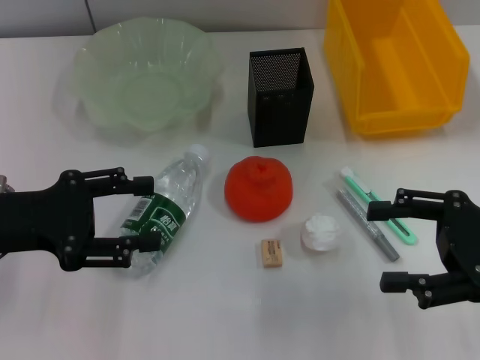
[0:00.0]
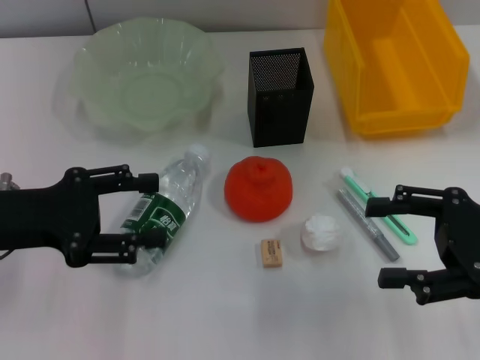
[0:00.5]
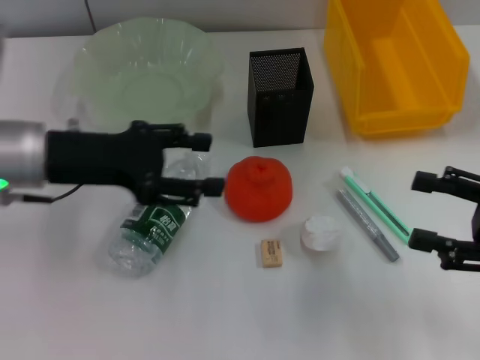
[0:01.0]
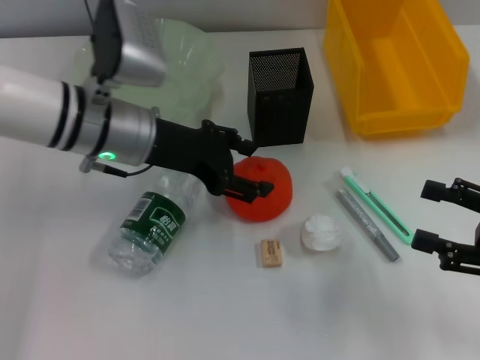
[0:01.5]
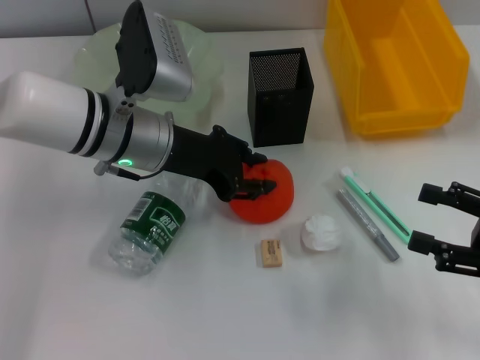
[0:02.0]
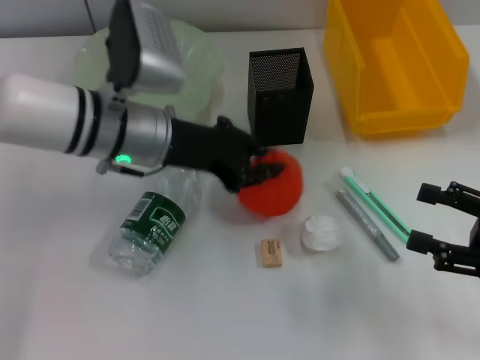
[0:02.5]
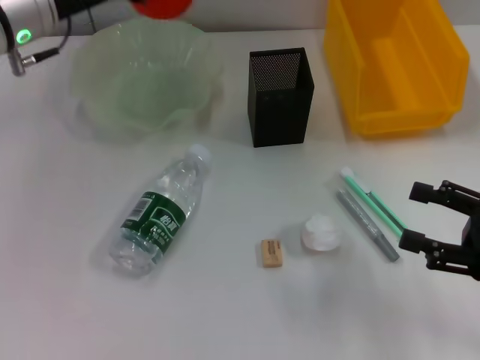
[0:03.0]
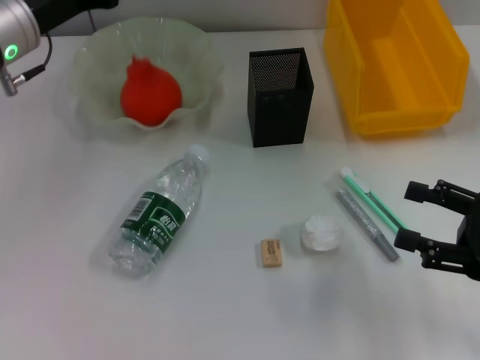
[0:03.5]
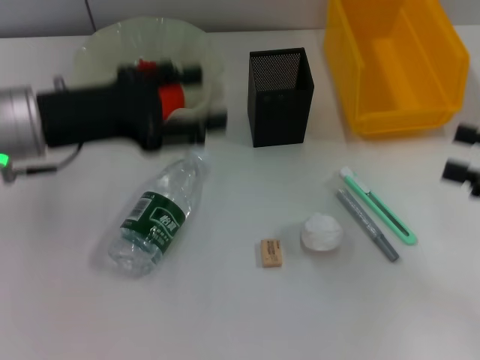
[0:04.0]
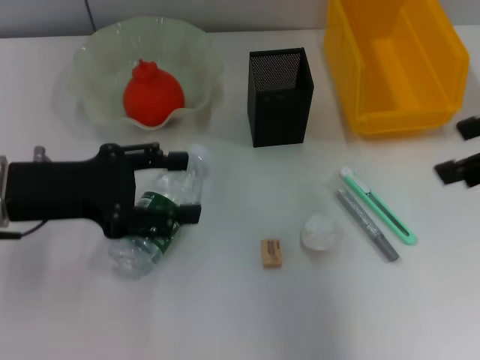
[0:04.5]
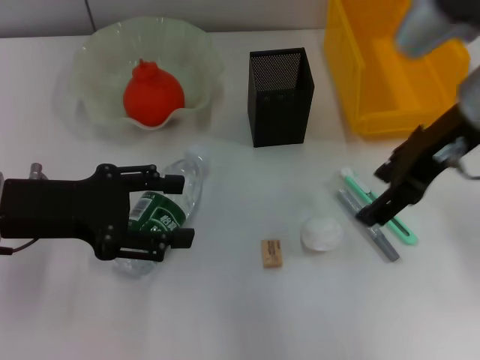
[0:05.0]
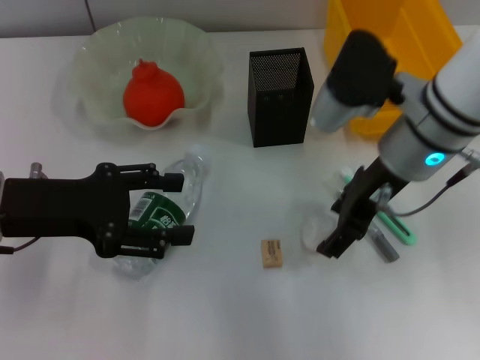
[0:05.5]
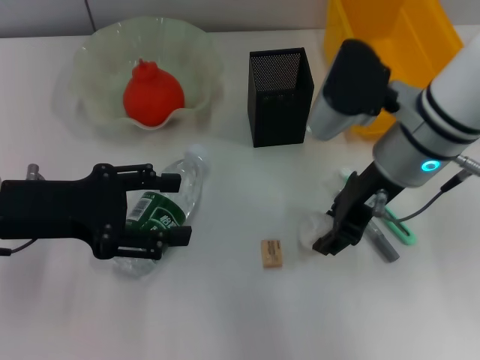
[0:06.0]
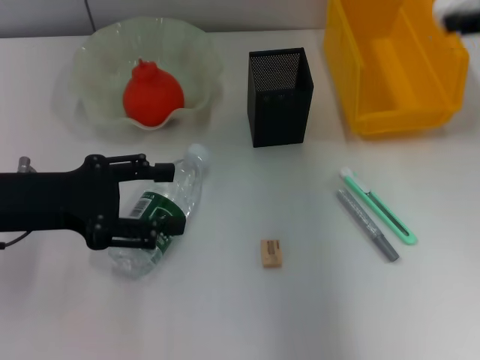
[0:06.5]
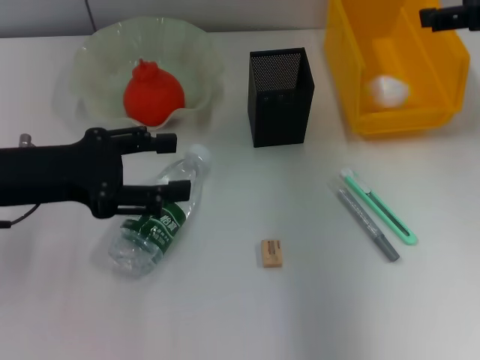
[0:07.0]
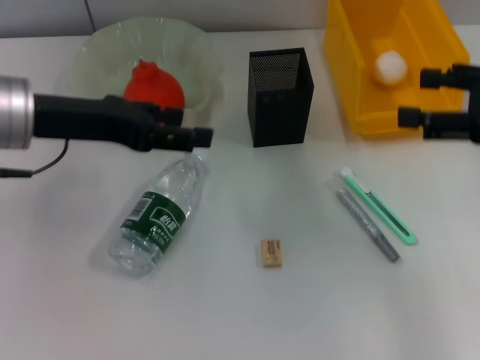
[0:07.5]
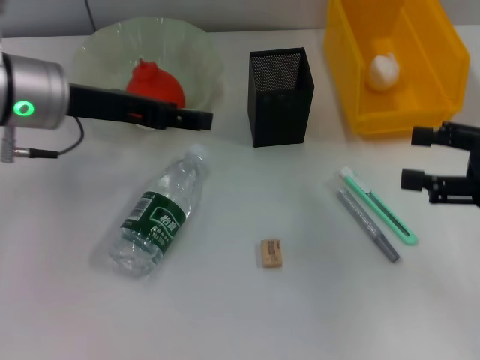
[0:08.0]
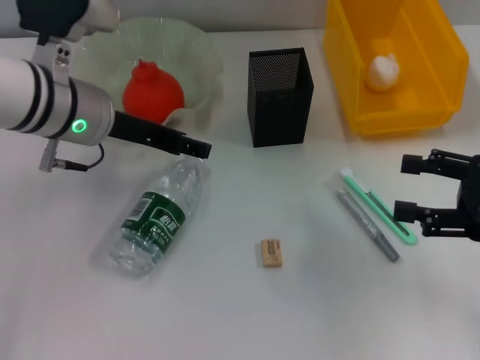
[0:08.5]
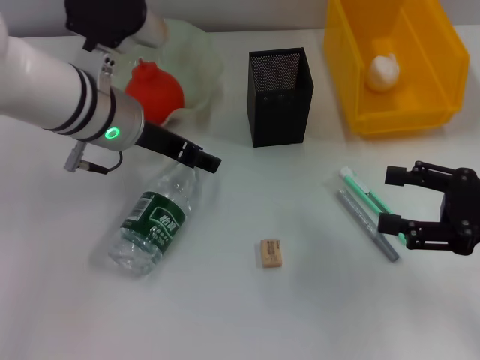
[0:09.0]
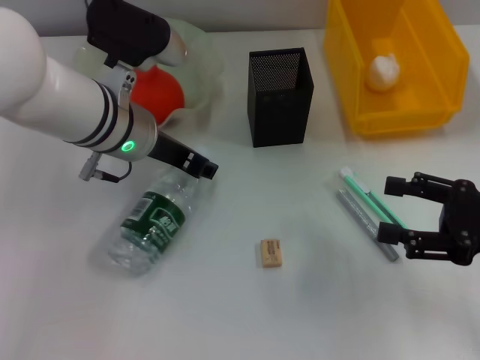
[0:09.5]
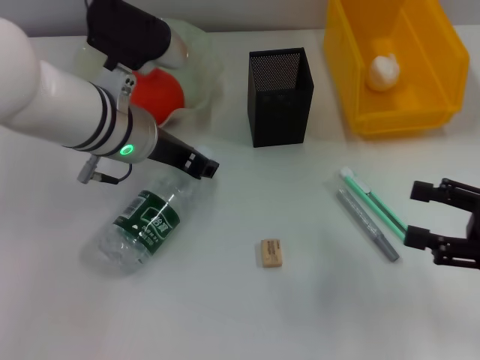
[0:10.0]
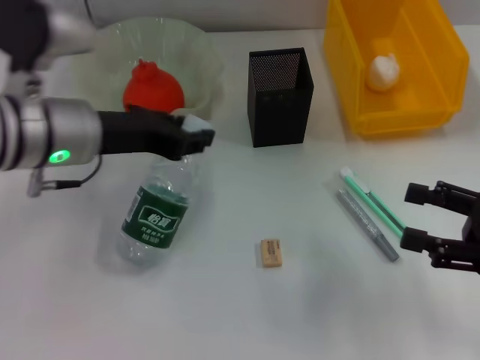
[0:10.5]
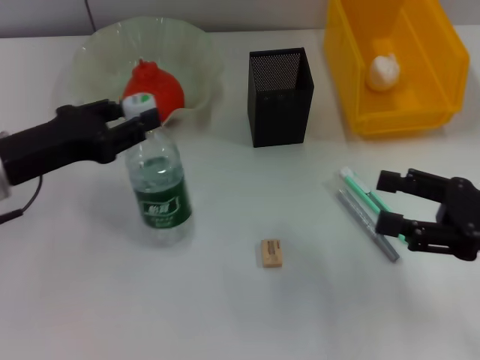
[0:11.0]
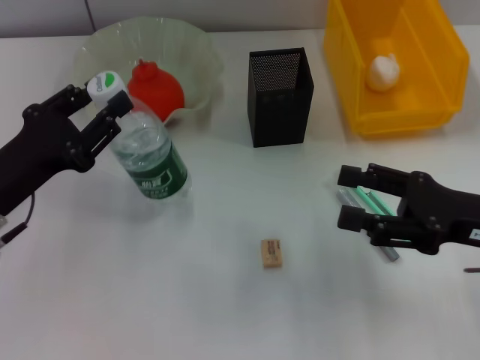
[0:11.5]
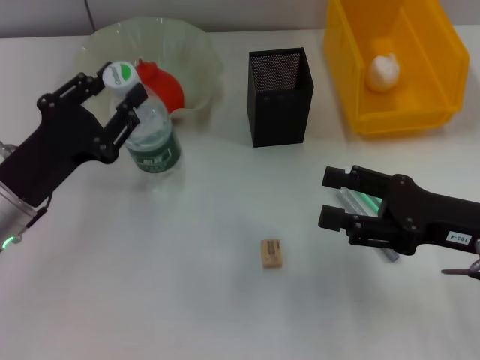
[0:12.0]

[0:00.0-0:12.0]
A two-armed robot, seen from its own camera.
Step, 0.0 to 2.0 s: Grab the orange with the left hand.
Step, 2.5 to 4.0 s: Place the orange into the fruit bowl with the left hand.
Step, 4.5 to 5.5 s: Grab the paper ball with the right hand.
Step, 6.0 to 7.0 s: Place the paper ball into the trash can with the right hand.
Step, 7.5 to 9.5 s: Grab the water bottle with the left hand.
0.0 to 2.0 s: The right gripper ends up about 5 cm from where it was, while the left gripper heads to the right and forward, covering some 20 cm.
2.0 to 4.0 s: The left gripper travels to the left by some 10 cm, and closes, then reopens, while the right gripper moves upward, approximately 5 cm.
4.0 to 6.0 s: The left gripper ends up roughly 5 cm from where it was. The right gripper moves to the left and forward, some 25 cm.
6.0 to 8.0 s: The left gripper goes roughly 10 cm forward and to the right, while the right gripper is displaced to the right by about 20 cm, and opens up.
8.0 to 10.0 s: The left gripper heads to the right, covering roughly 10 cm, and closes its fingers. Meanwhile the right gripper shifts by roughly 5 cm.
10.0 to 12.0 s: The left gripper shifts approximately 15 cm to the left, backward and downward. Meanwhile the right gripper heads to the left, covering some 5 cm.

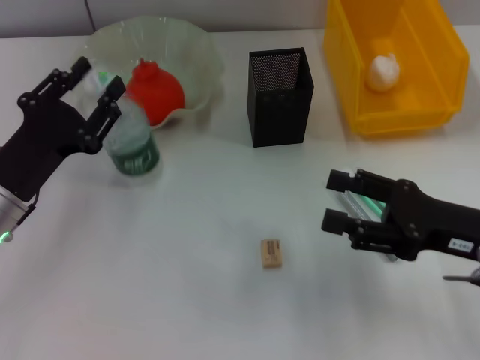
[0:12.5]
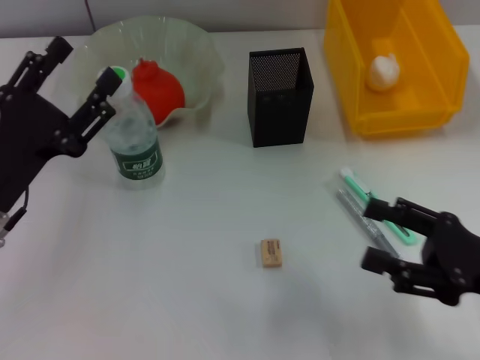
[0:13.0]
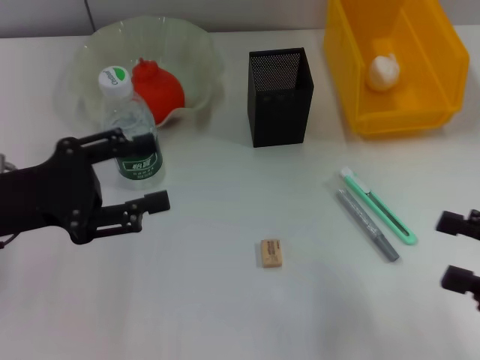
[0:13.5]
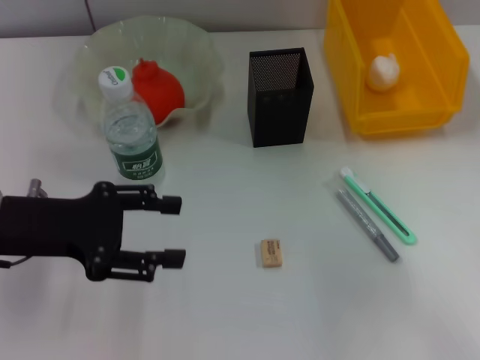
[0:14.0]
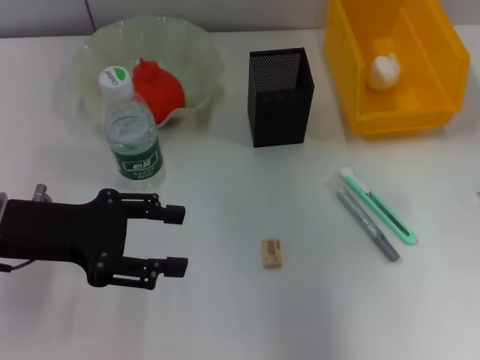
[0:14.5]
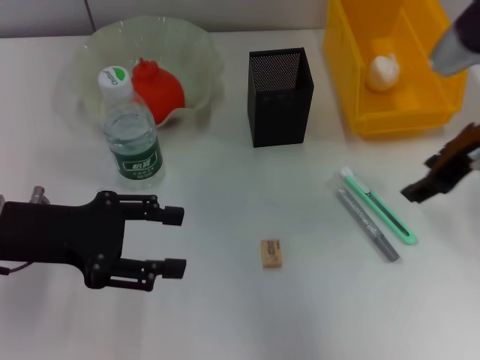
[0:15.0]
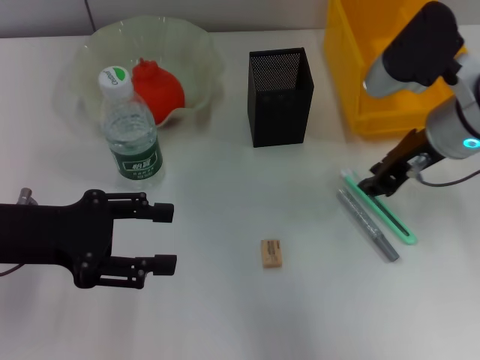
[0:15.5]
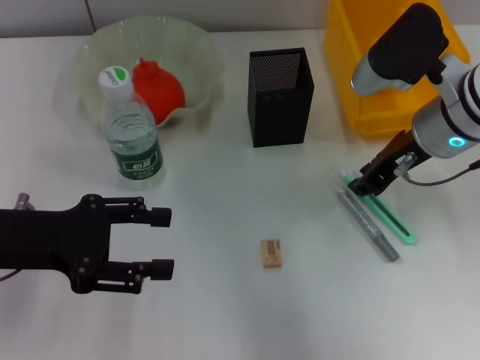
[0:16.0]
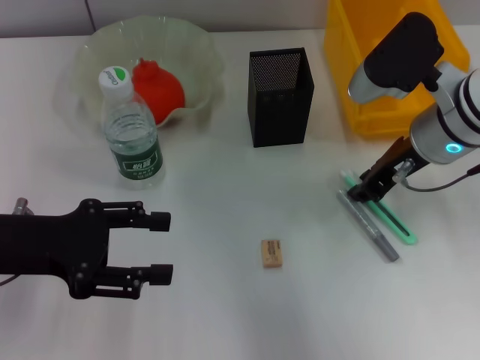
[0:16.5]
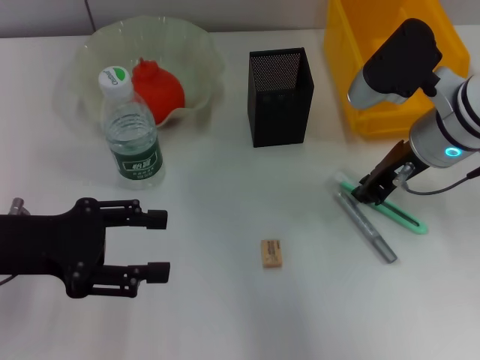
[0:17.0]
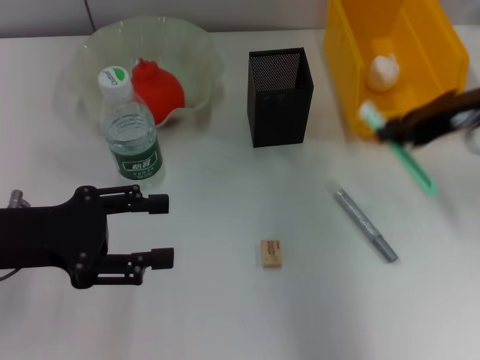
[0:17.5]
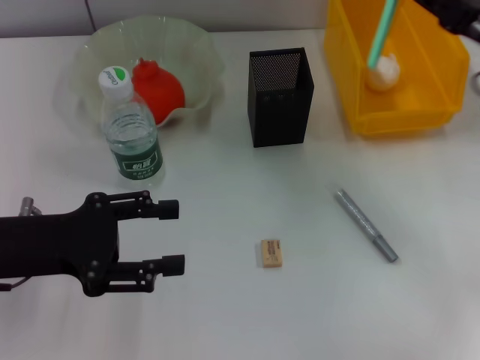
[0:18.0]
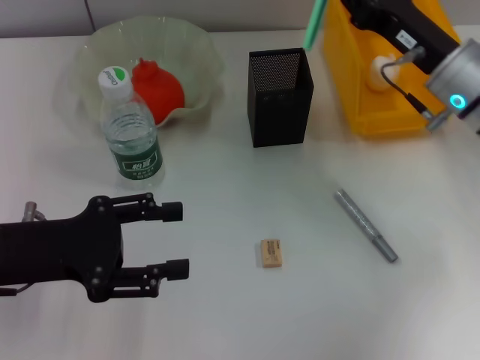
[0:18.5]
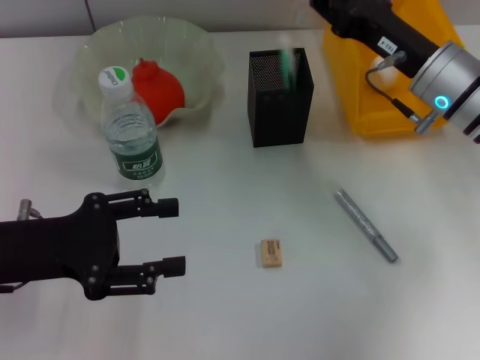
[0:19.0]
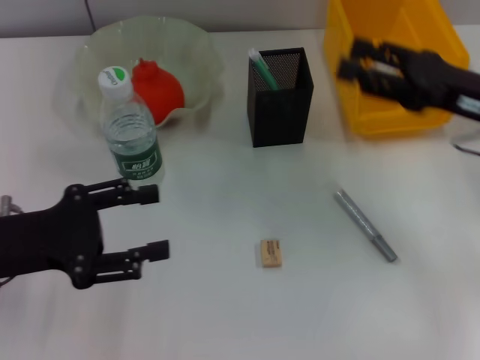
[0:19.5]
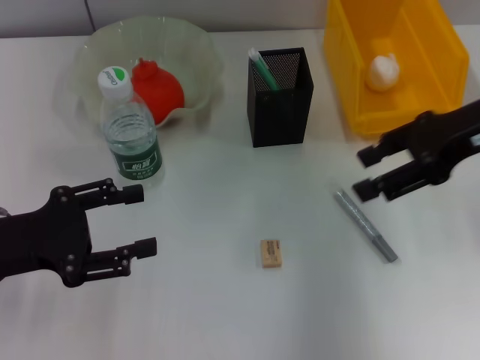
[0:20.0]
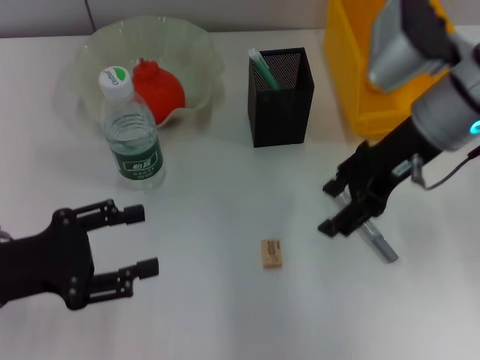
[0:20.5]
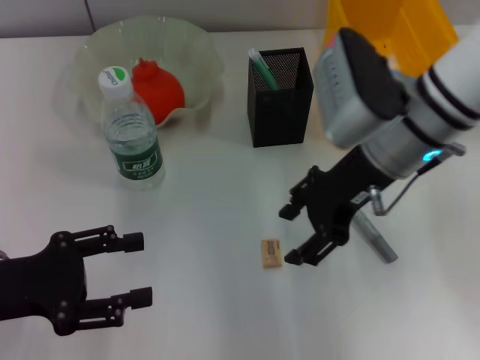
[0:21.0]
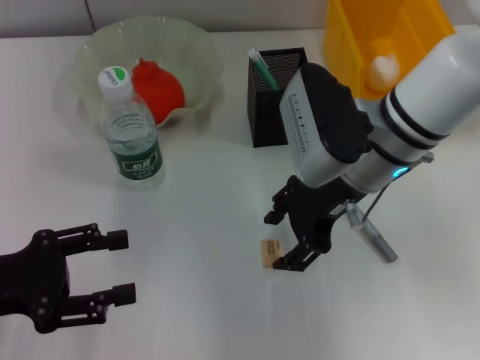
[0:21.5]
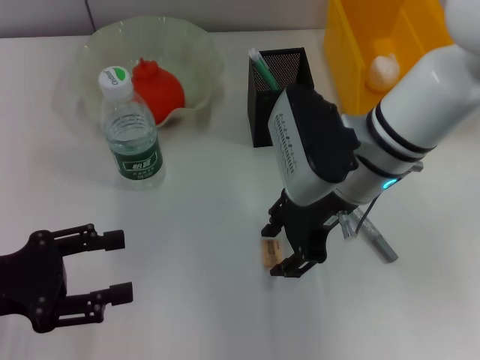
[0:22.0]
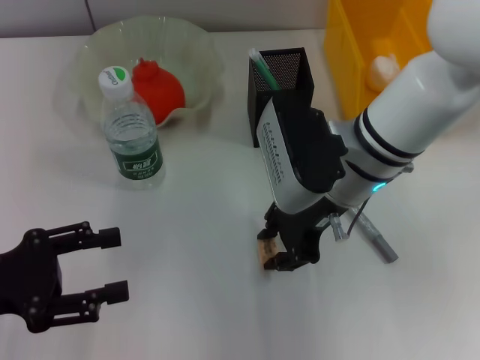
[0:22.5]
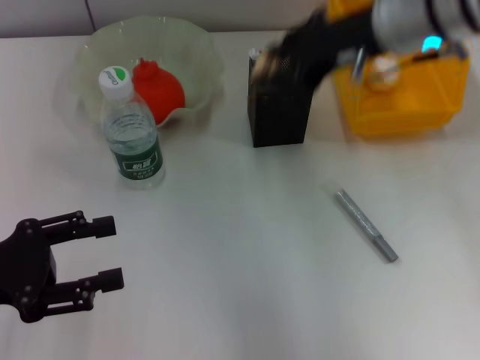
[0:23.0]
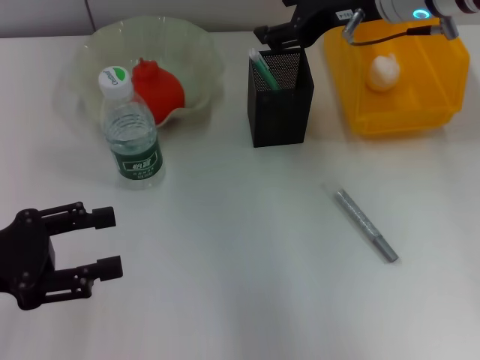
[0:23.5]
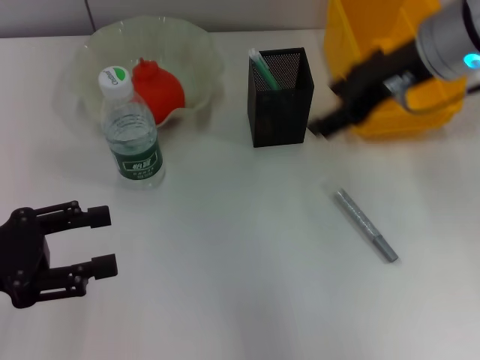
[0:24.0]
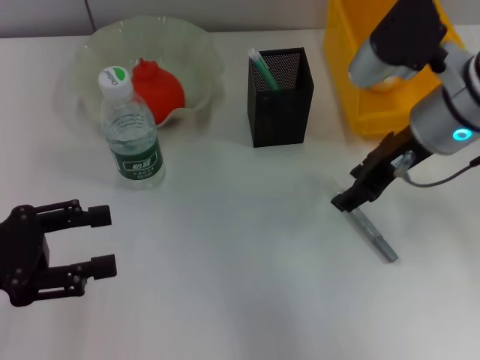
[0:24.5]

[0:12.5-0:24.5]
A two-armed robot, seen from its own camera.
Step, 13.5 to 17.0 s: Grab the blue utility knife with the right hand.
Step, 17.5 to 19.0 s: Place the blue utility knife into the pen holder with the right hand.
Step, 19.5 to 22.0 s: Grab the eraser with the right hand.
Step, 22.5 to 23.5 s: Put the eraser into the pen holder with the right hand.
12.5 to 14.5 s: The left gripper goes approximately 5 cm upward, and opens its fingers. Meanwhile the right gripper goes approximately 15 cm upward.
14.5 to 16.5 s: The right gripper heads to the left, downward and forward, covering approximately 15 cm, and closes.
16.5 to 18.5 s: The right gripper reaches approximately 10 cm to the right, then returns.
18.5 to 20.5 s: The right gripper moves upward, some 5 cm, and opens its fingers.
20.5 to 22.5 s: The right gripper goes some 10 cm to the left, and closes its fingers.
22.5 to 24.5 s: The right gripper moves to the right, some 10 cm, and opens up.

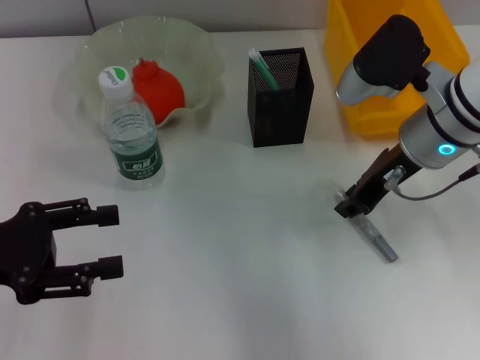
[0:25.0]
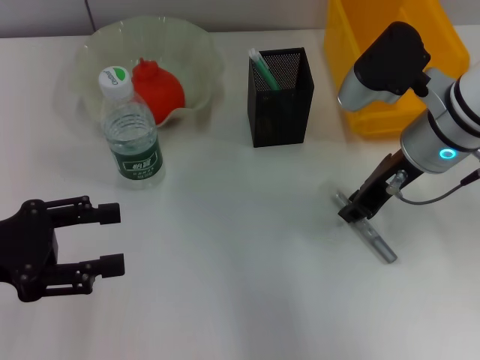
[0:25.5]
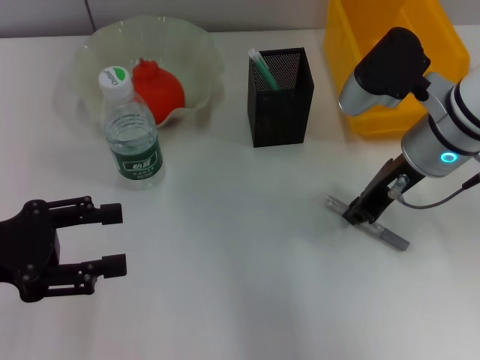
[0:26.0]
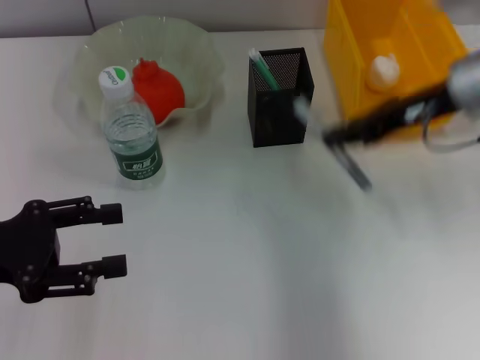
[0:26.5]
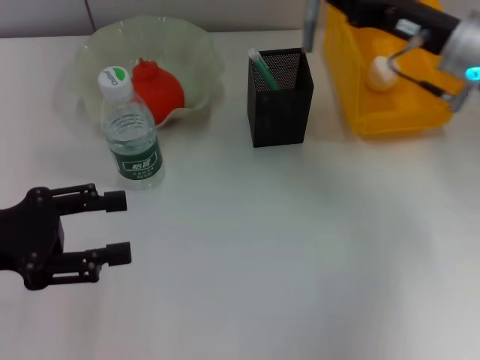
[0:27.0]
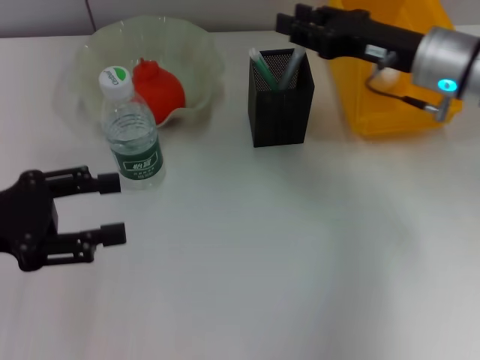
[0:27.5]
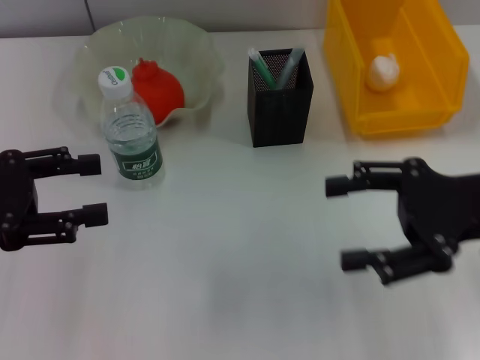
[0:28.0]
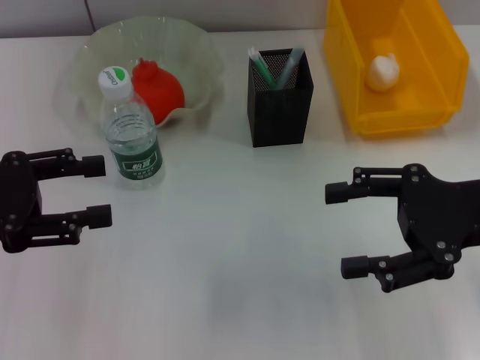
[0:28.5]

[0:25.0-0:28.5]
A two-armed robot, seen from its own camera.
Step, 26.0 to 27.5 s: Place the gray glue into the pen holder with the right hand.
25.0 to 27.0 s: The right gripper heads to the right, covering approximately 5 cm, and closes.
27.0 to 28.5 s: The right gripper is displaced backward by some 10 cm, and opens.
